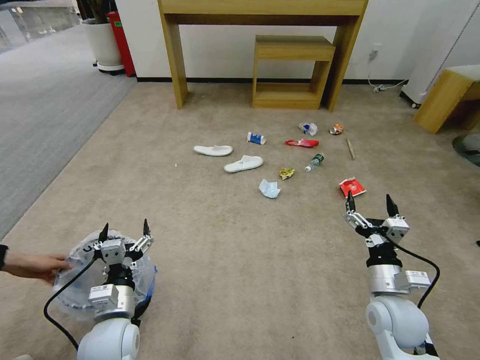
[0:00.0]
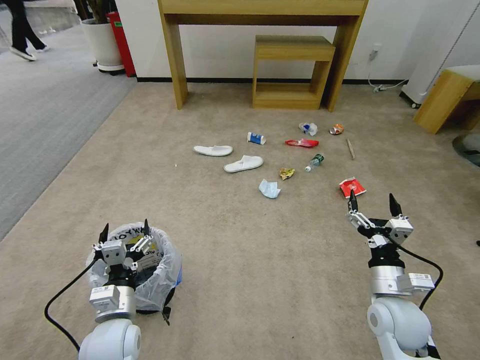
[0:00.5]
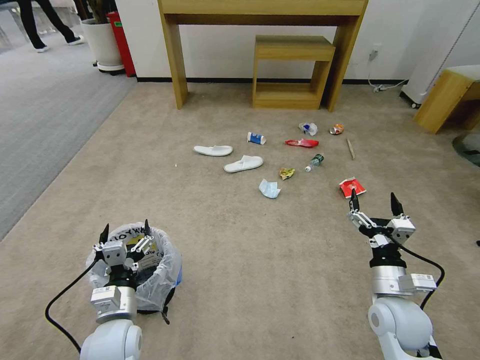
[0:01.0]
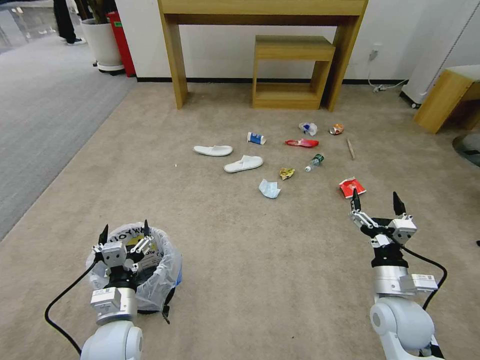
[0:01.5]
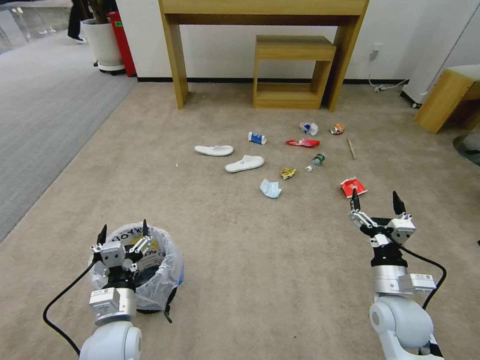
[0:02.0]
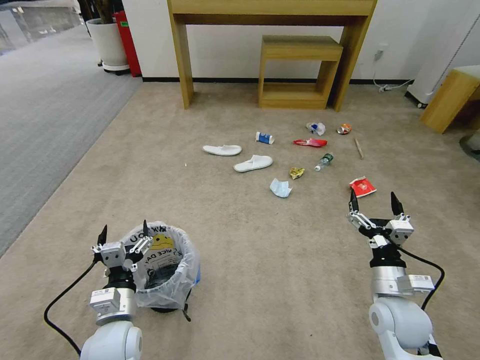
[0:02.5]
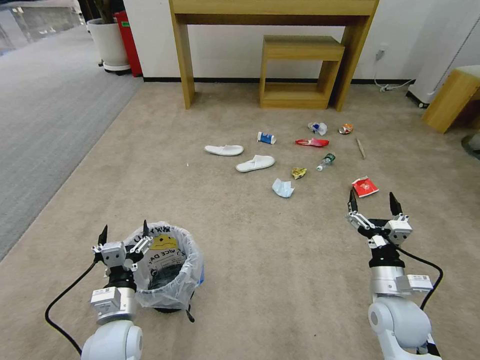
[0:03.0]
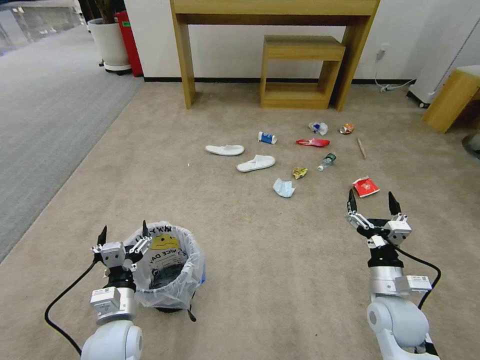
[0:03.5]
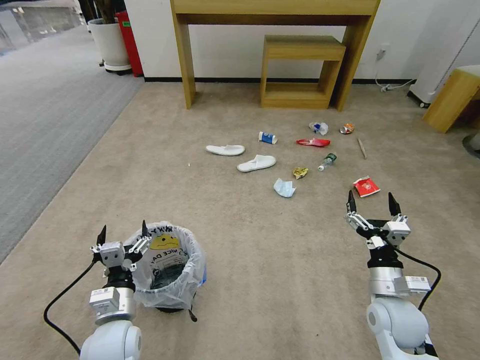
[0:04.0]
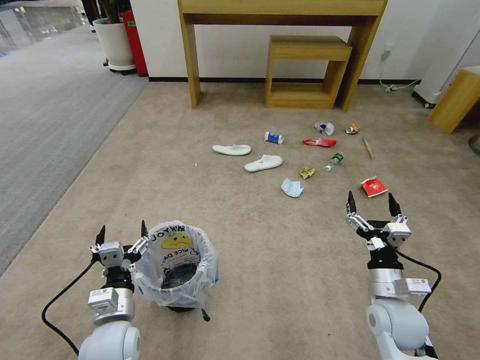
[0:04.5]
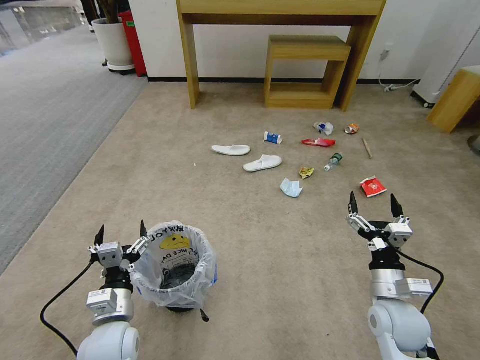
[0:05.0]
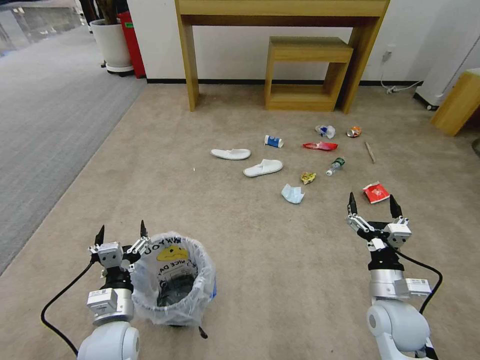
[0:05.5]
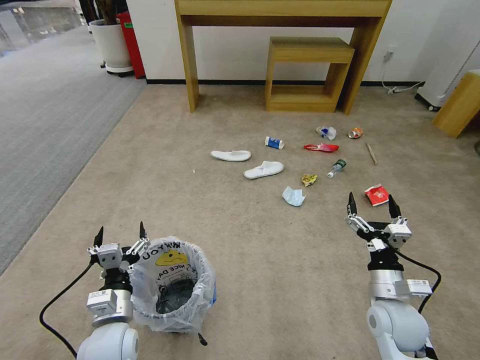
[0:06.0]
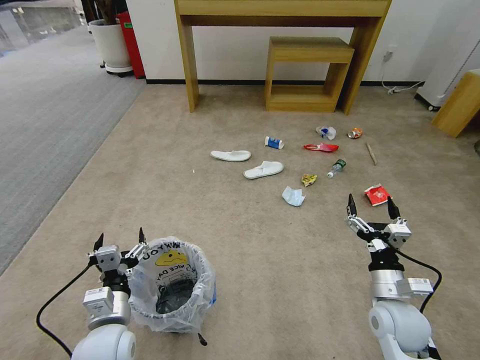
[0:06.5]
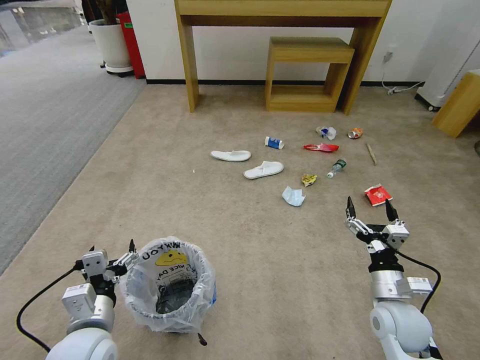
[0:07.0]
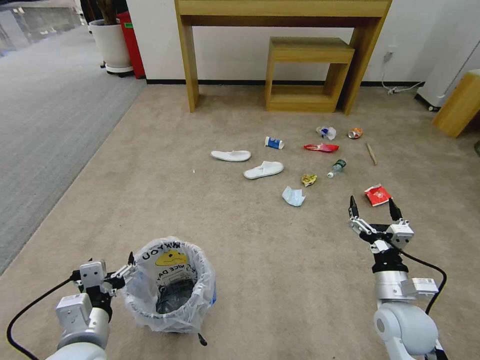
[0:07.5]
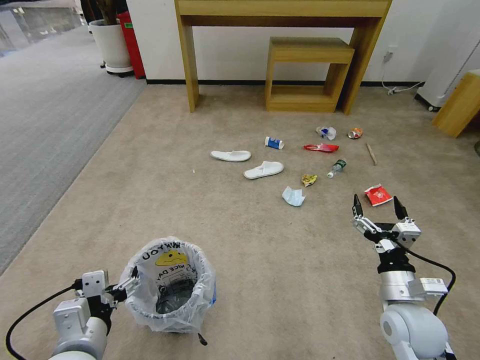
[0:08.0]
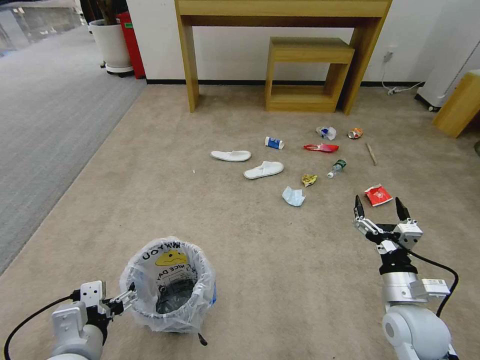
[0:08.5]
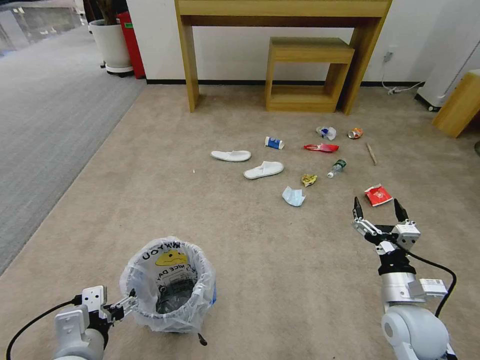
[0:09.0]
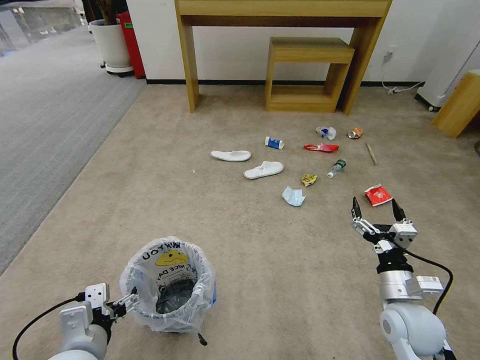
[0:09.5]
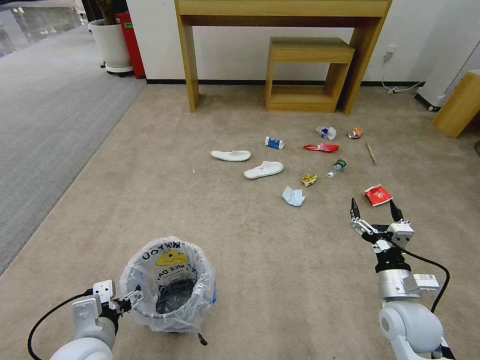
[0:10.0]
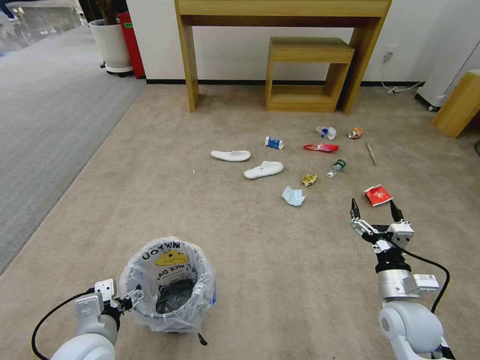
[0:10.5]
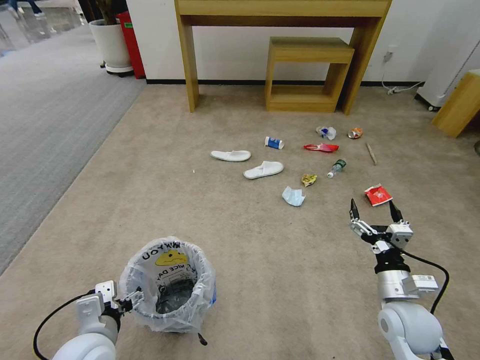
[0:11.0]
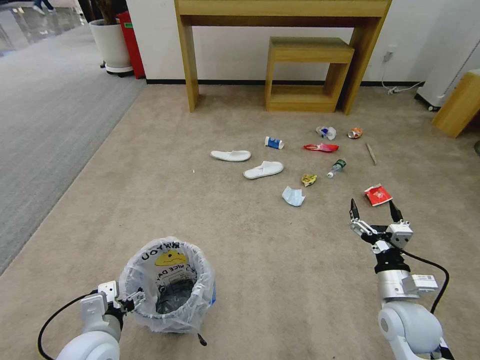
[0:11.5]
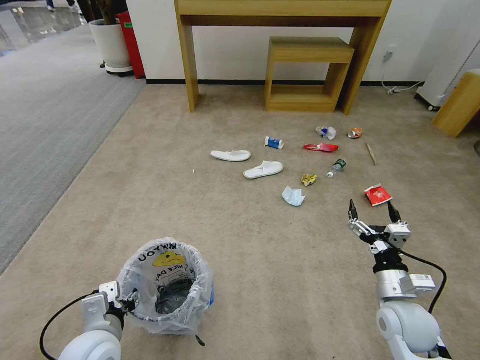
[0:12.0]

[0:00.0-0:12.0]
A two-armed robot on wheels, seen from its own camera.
Task of the whole recording: Pick up the trash bin and place the garbage on the floor into it.
0:02.0 to 0:06.0: Both grippers stay about where they are.
0:06.0 to 0:08.0: The left gripper moves upward and backward, about 10 cm.
0:08.0 to 0:10.0: There are only small adjustments of the grippers.
0:10.0 to 0:12.0: The left gripper closes.

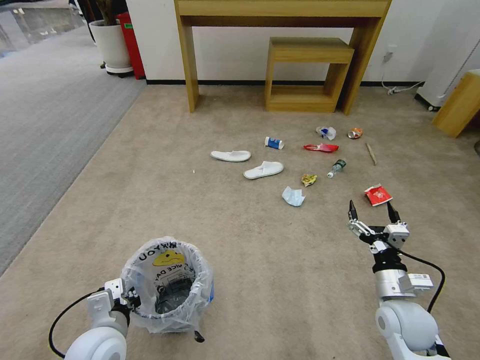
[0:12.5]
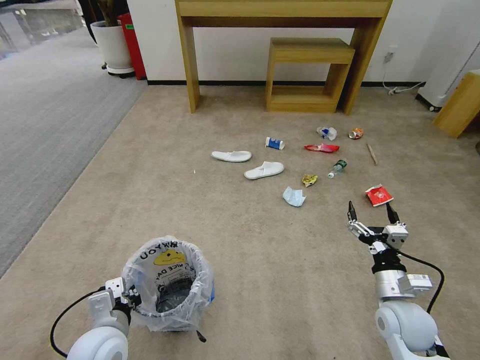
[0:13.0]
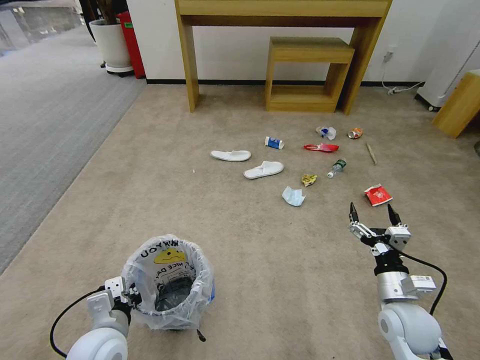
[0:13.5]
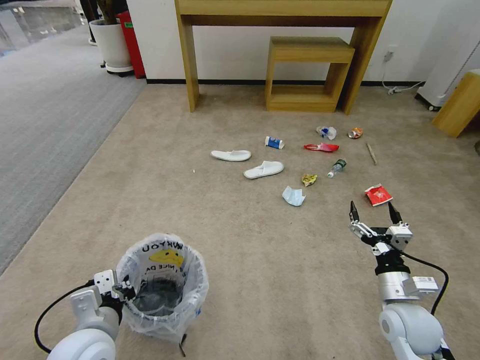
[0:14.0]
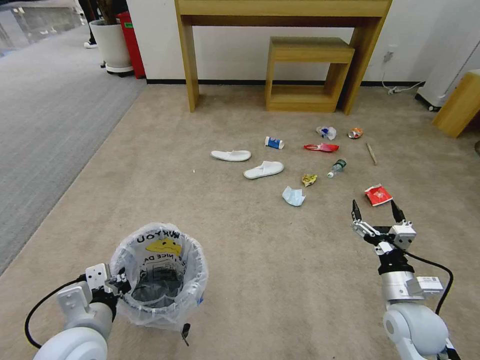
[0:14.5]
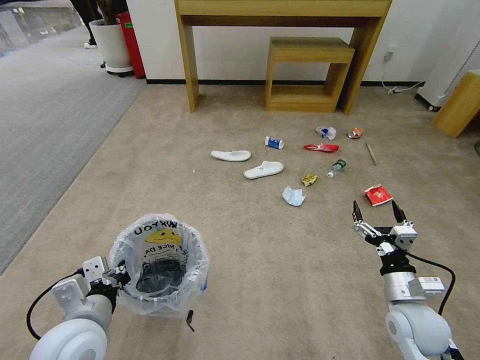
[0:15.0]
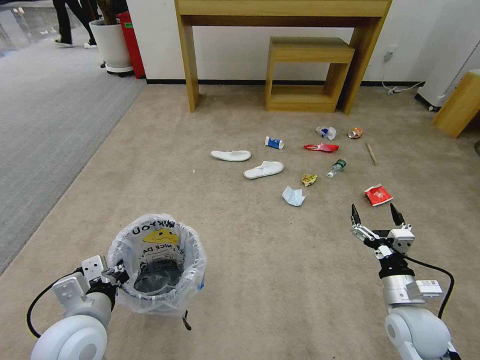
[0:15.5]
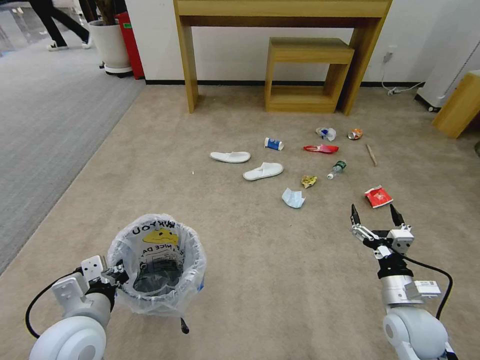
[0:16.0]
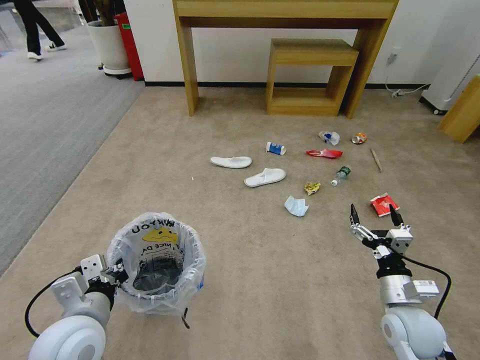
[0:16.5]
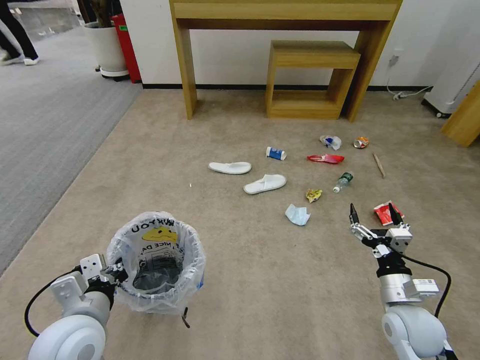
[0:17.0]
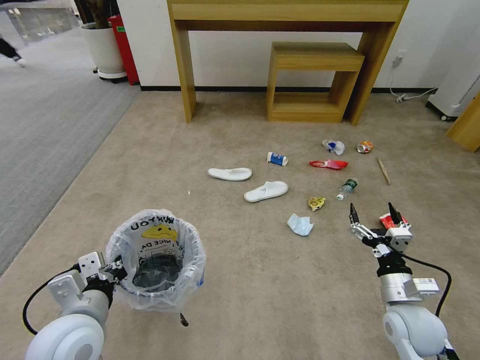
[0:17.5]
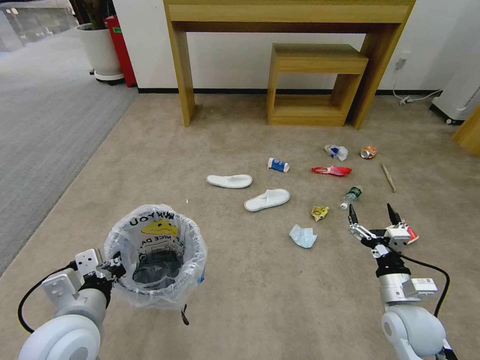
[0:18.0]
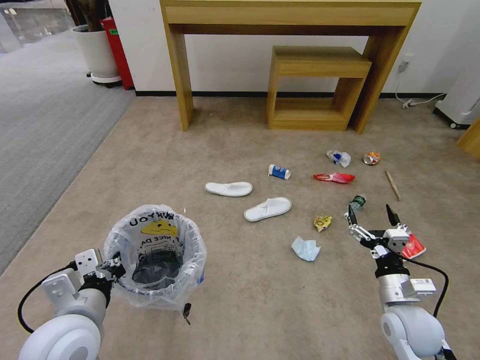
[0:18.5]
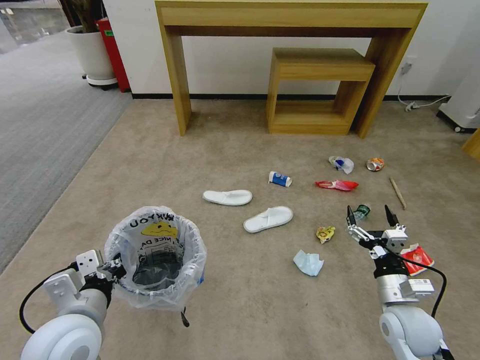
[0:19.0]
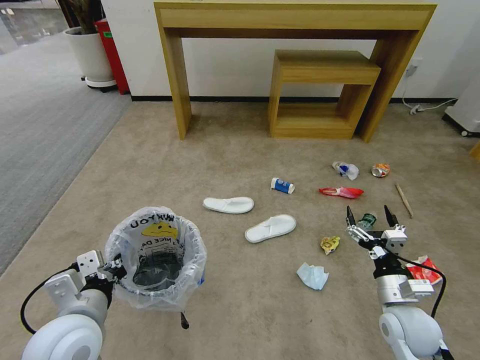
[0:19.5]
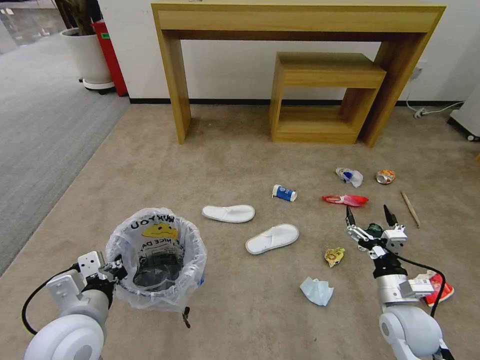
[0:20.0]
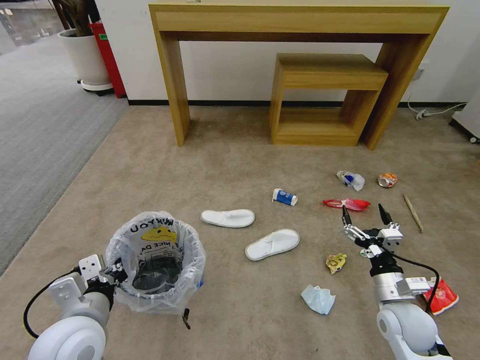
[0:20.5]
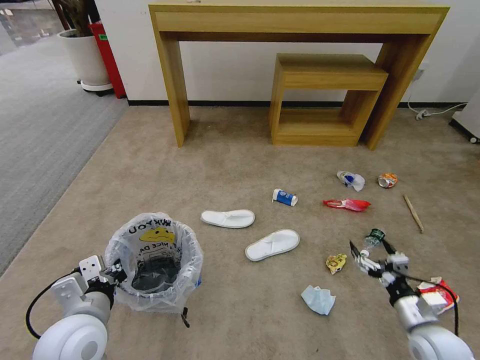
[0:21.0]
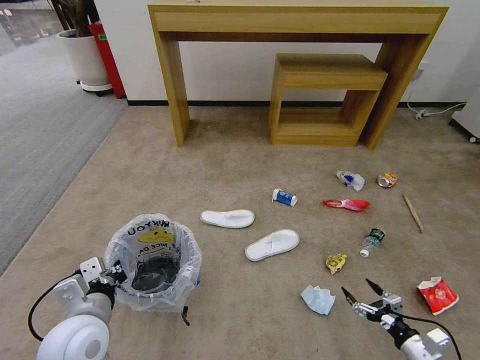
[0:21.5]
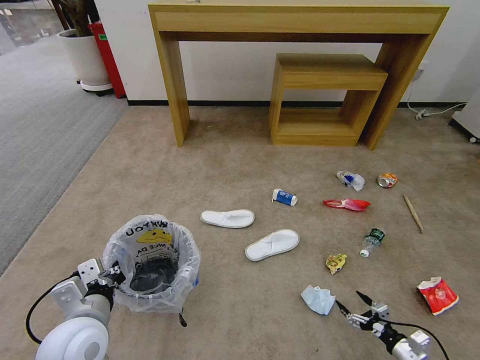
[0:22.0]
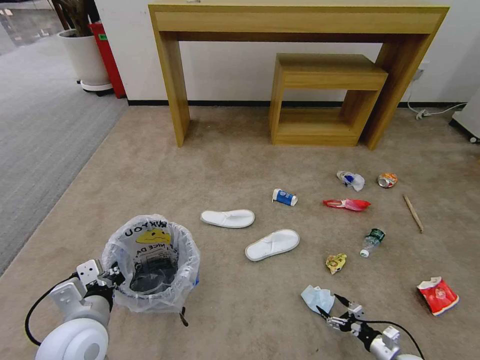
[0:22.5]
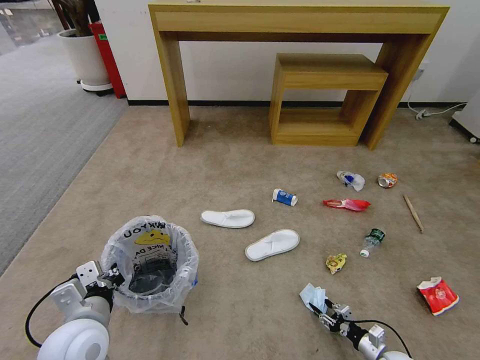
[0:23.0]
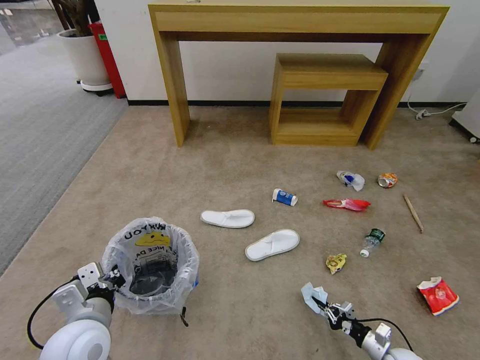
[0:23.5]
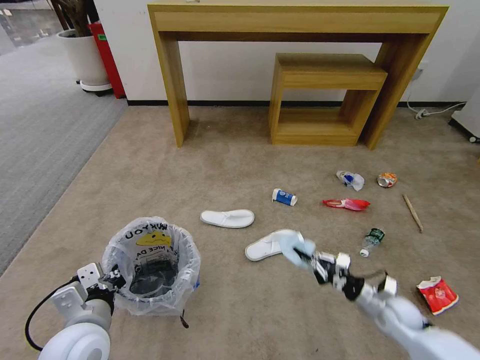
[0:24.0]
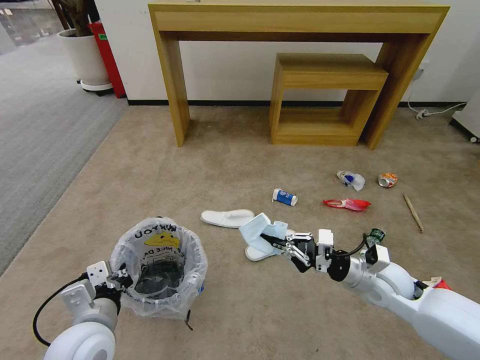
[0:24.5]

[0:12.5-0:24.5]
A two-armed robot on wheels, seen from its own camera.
Task of the whole recording: Pick up the trash bin and place the garbage on the floor into it.
0:12.5 to 0:14.5: The left gripper shifts about 5 cm upward.
0:14.5 to 0:16.5: There are only small adjustments of the grippers.
0:20.5 to 0:22.5: The right gripper travels downward and to the right by some 25 cm.
0:22.5 to 0:24.5: The right gripper heads upward, to the left and forward, covering some 35 cm, and closes up.

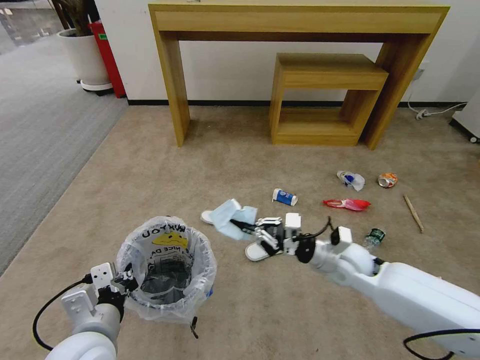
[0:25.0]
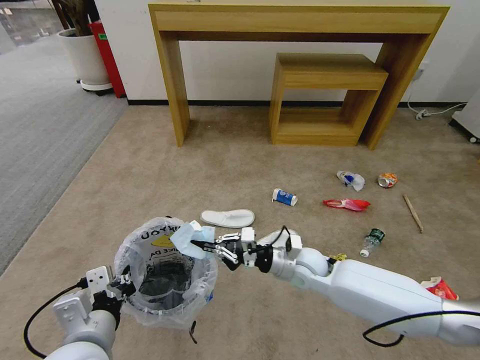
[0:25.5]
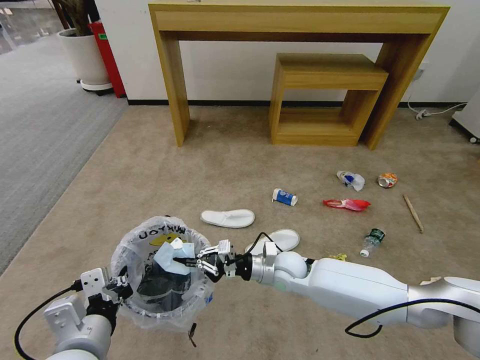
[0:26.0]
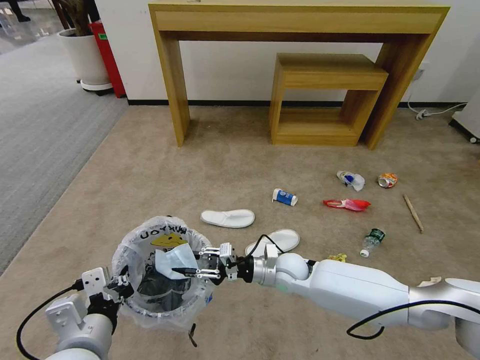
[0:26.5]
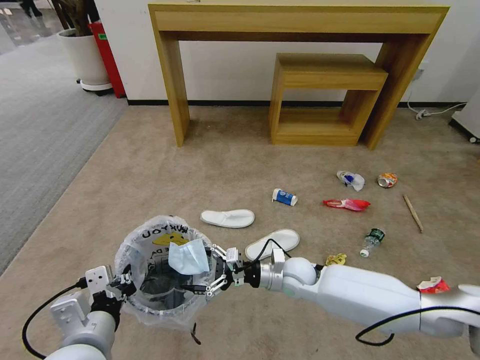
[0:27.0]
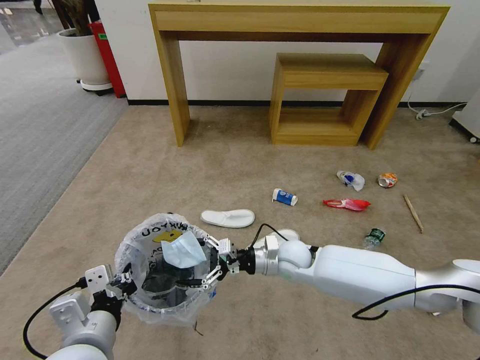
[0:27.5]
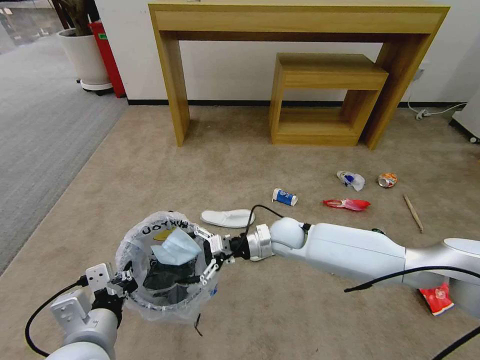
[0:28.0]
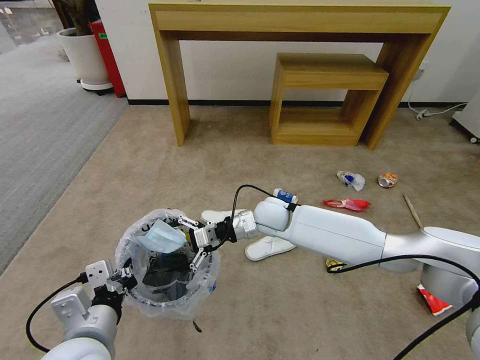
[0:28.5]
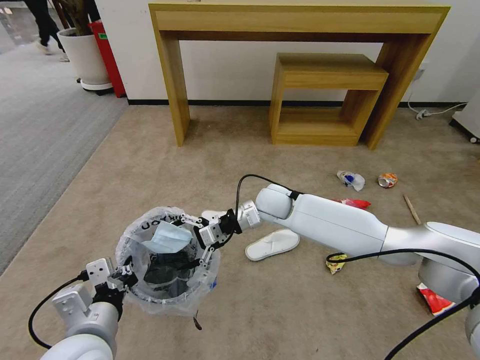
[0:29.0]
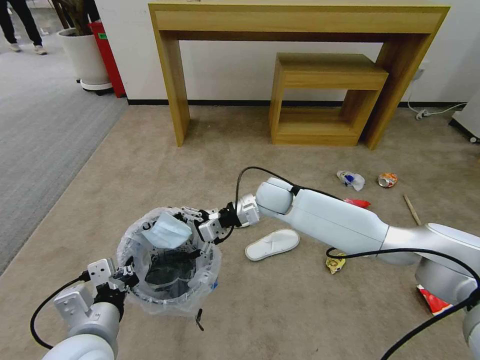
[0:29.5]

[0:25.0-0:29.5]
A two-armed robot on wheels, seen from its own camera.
Task of the whole recording: Pick up the trash bin and place the garbage on the floor into it.
0:25.0 to 0:27.0: The right gripper goes roughly 15 cm to the left and downward, and opens up.
0:27.0 to 0:29.5: The right gripper goes about 20 cm upward and forward.
